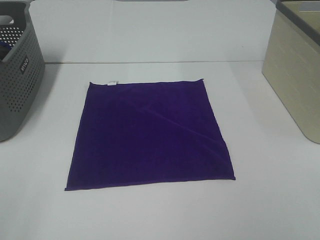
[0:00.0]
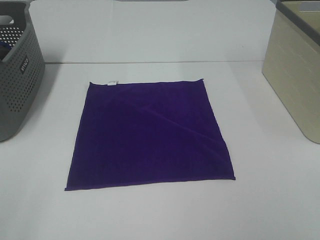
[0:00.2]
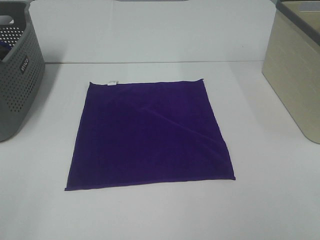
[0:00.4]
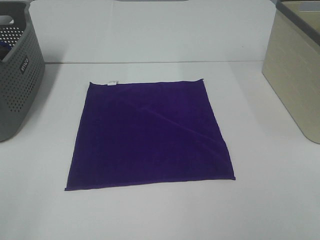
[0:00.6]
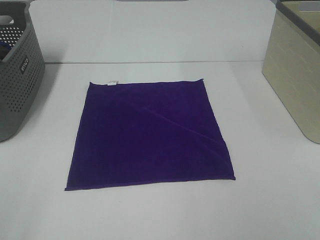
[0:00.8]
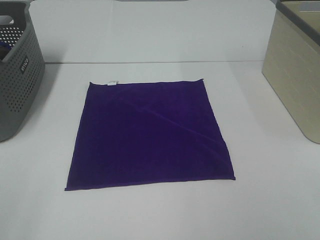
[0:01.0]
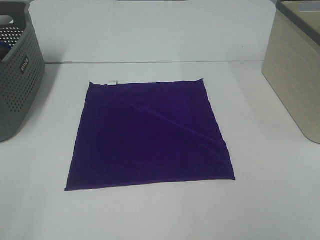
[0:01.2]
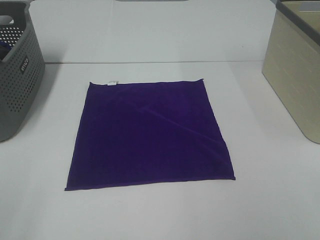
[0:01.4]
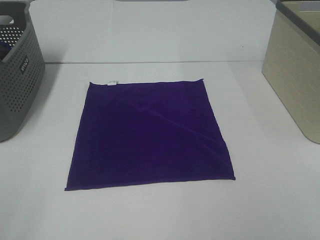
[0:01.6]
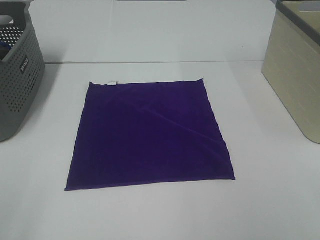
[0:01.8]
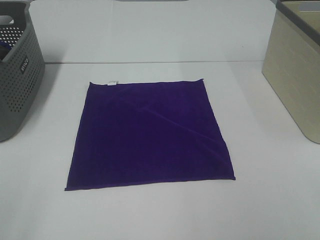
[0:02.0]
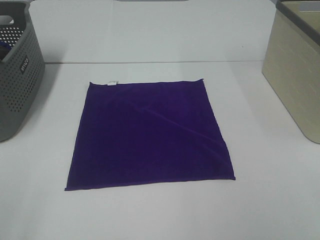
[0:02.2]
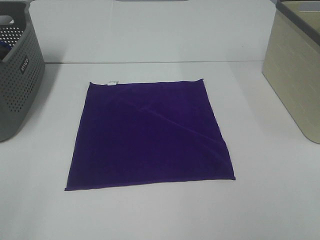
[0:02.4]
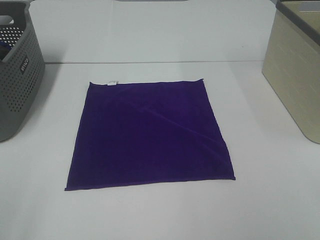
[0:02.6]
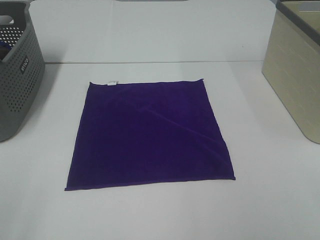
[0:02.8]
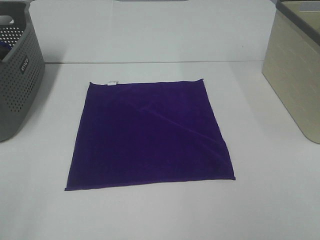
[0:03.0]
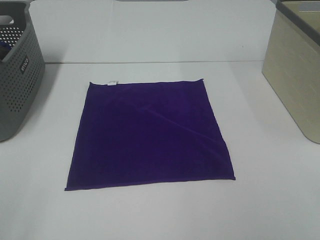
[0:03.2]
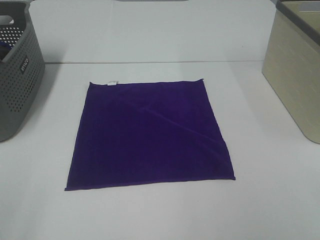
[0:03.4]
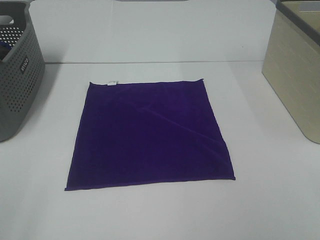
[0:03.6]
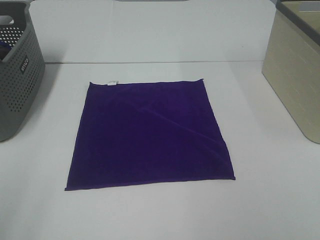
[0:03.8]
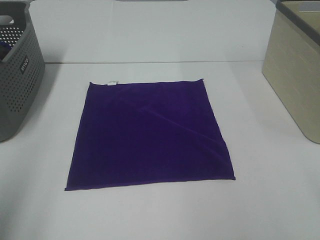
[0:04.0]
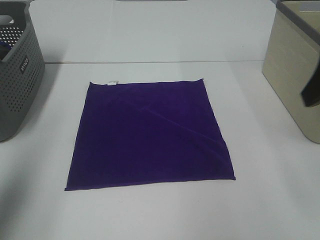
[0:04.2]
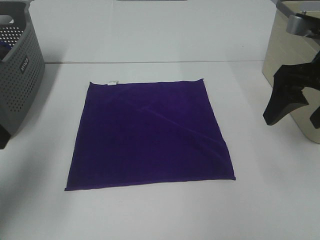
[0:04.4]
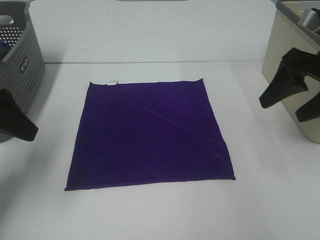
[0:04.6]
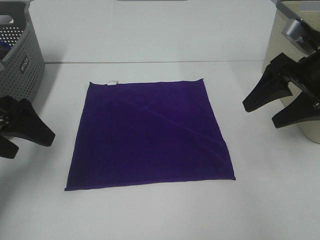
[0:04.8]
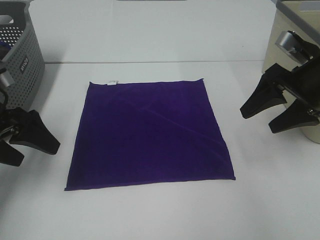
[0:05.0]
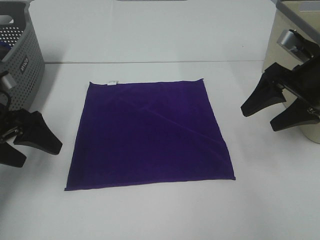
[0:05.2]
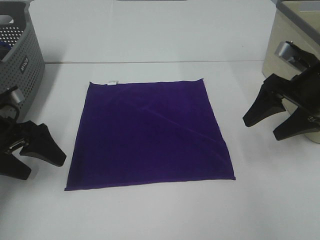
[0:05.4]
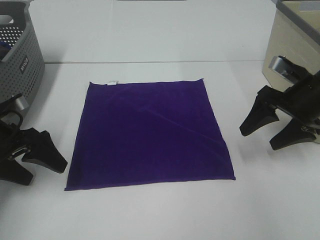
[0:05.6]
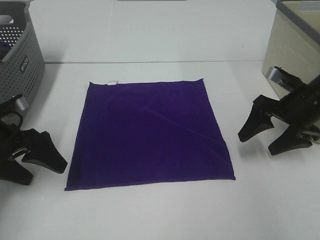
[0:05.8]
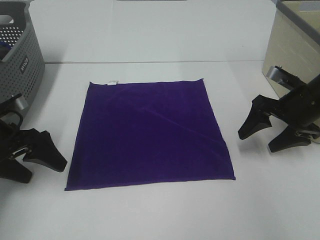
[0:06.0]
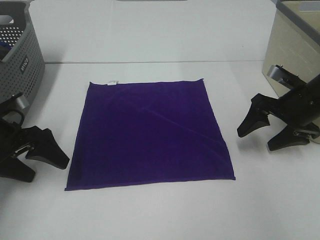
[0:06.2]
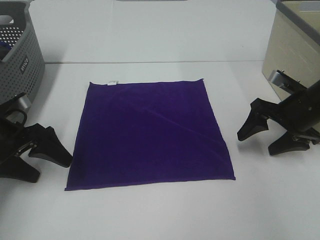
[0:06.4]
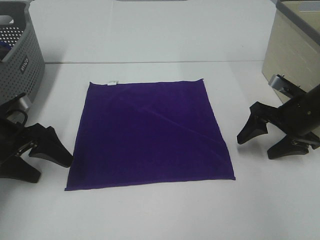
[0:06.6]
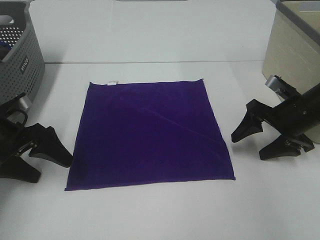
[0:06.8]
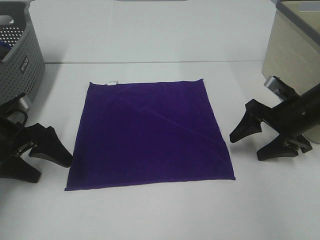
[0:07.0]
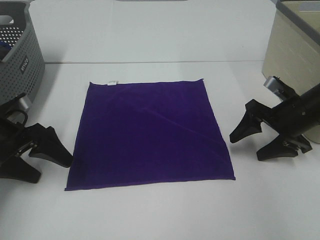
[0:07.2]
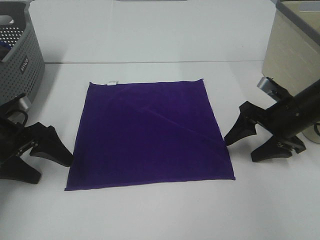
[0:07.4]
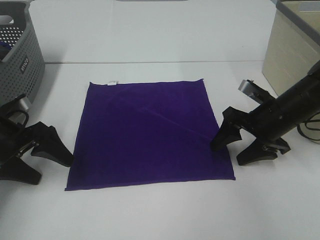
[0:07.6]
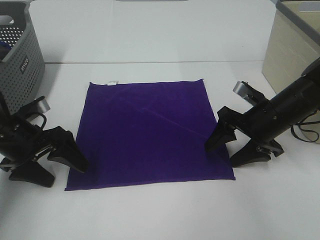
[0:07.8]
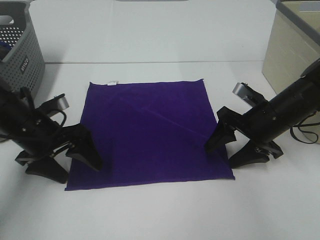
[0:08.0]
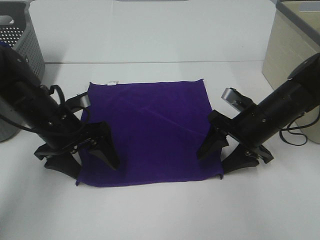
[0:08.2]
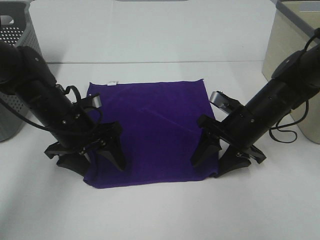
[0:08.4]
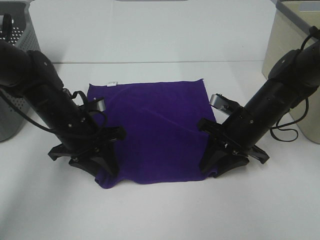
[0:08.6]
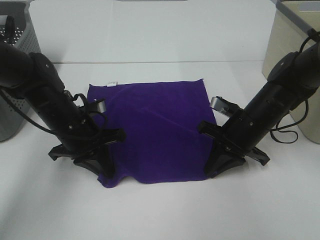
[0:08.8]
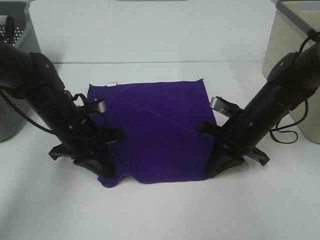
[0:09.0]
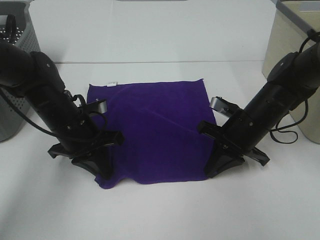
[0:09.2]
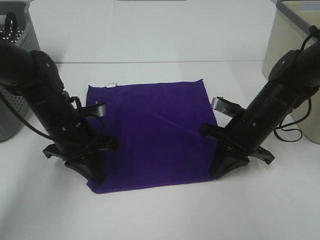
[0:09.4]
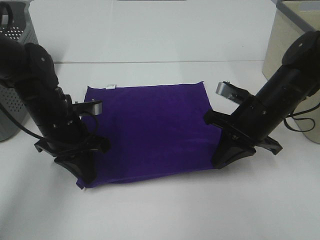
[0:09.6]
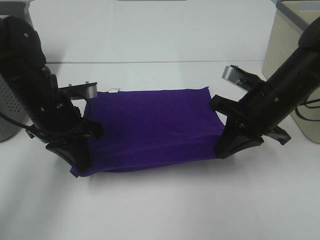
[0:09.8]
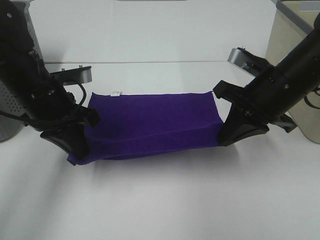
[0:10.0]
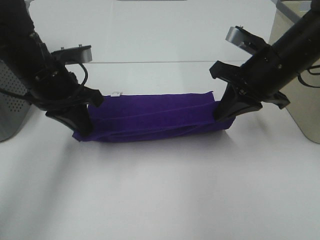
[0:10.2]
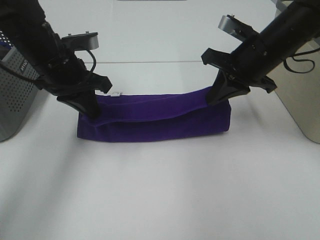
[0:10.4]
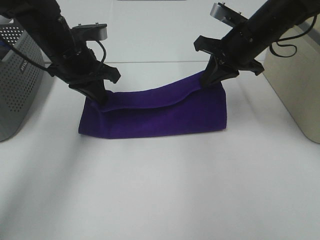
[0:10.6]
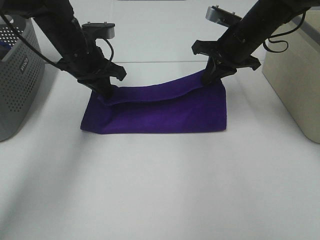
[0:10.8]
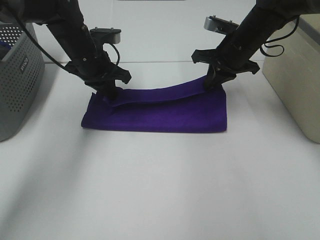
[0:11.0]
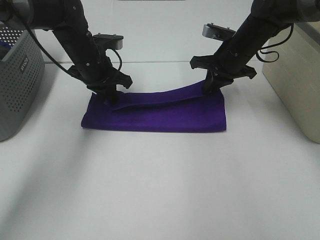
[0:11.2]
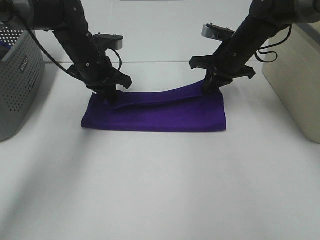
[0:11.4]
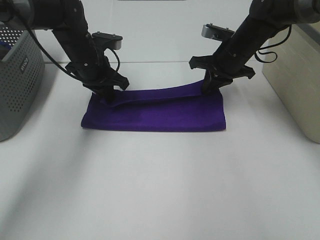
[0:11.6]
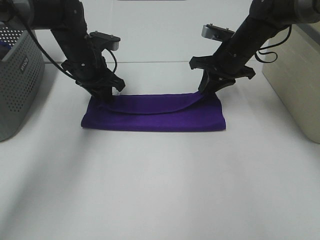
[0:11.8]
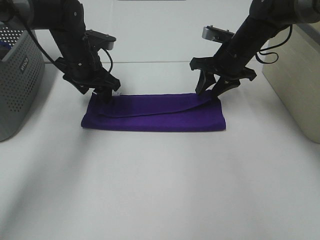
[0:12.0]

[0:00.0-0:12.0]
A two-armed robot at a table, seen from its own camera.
Task of the whole recording: Fold towels.
Step, 0:00.0 to 0:08.8: Left hand: grab the bottom left corner of purple towel.
Step, 0:00.0 to 0:08.8: Right hand: grab the bottom right corner of purple towel.
Step, 0:09.0 to 0:11.8: Left hand: fold the purple towel up.
Step, 0:09.0 to 0:11.8: Right hand: fold the purple towel up.
0:00.0 to 0:03.0: The two grippers keep their place.
0:03.0 to 0:04.4: The grippers both shift forward by about 25 cm.
0:04.4 to 0:06.0: The two grippers go approximately 15 cm downward and forward.
0:06.0 to 0:07.6: The right gripper moves to the left, some 5 cm.
0:07.6 to 0:09.0: The left gripper goes approximately 10 cm to the right, and closes its fingers. The right gripper closes.
0:09.0 to 0:10.4: The two grippers go some 10 cm upward.
0:10.4 to 0:12.0: The two grippers go roughly 10 cm forward and downward. The left gripper opens its fingers; the right gripper opens its fingers.

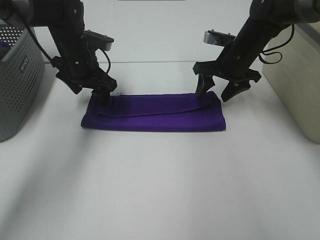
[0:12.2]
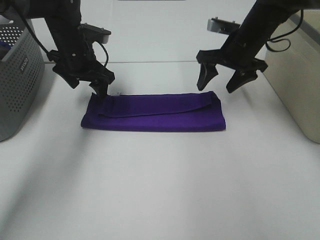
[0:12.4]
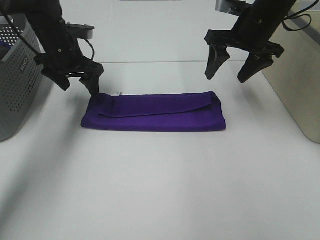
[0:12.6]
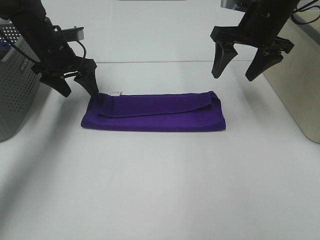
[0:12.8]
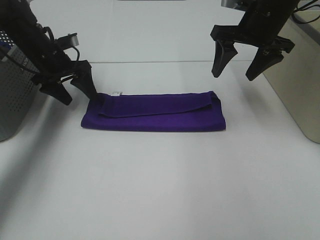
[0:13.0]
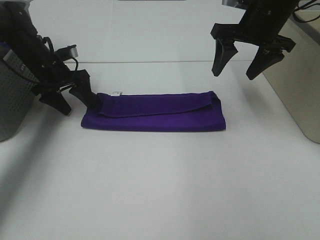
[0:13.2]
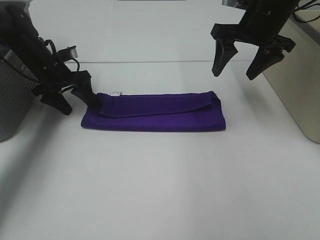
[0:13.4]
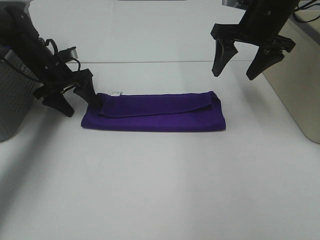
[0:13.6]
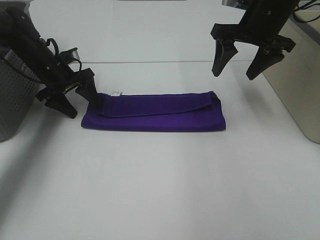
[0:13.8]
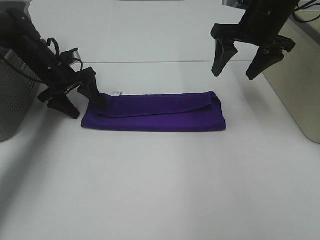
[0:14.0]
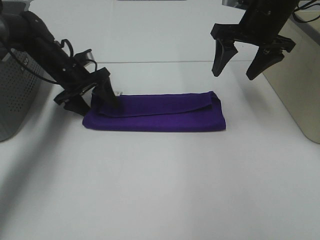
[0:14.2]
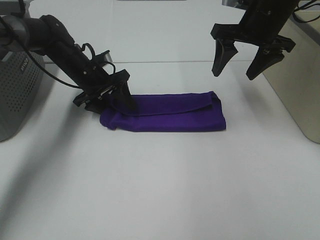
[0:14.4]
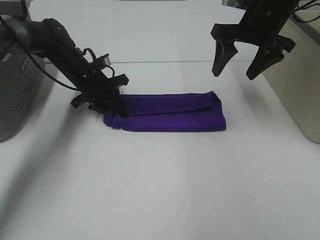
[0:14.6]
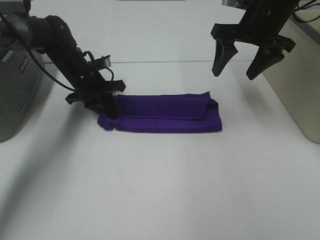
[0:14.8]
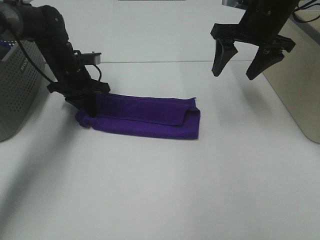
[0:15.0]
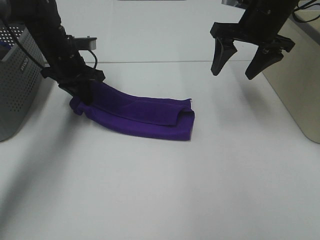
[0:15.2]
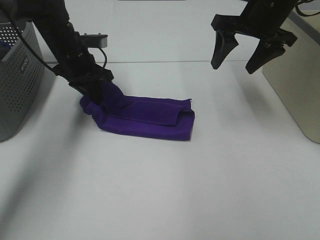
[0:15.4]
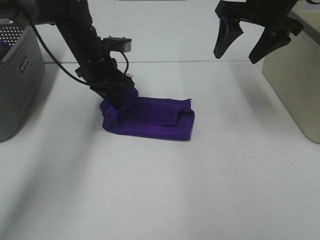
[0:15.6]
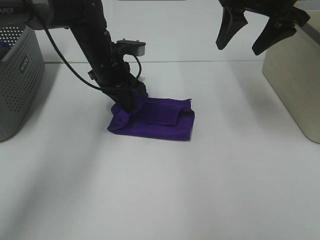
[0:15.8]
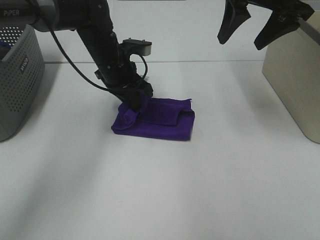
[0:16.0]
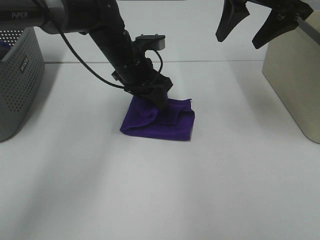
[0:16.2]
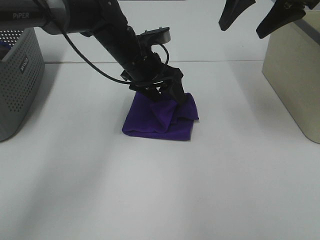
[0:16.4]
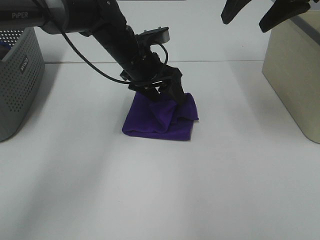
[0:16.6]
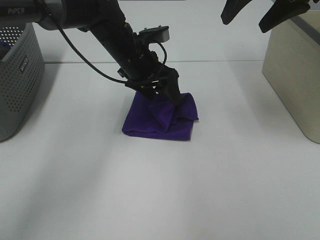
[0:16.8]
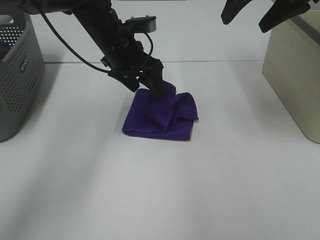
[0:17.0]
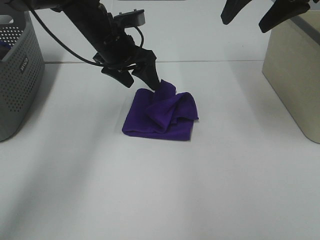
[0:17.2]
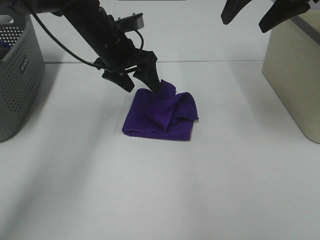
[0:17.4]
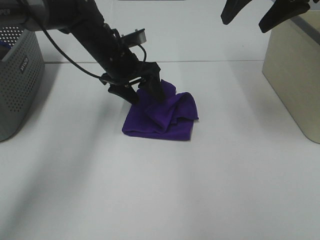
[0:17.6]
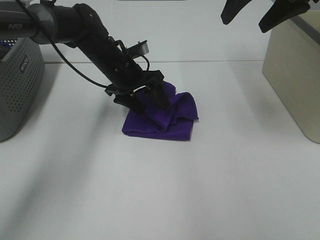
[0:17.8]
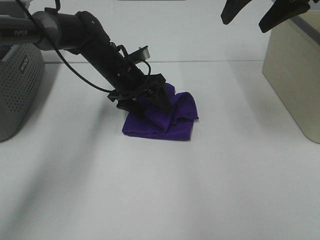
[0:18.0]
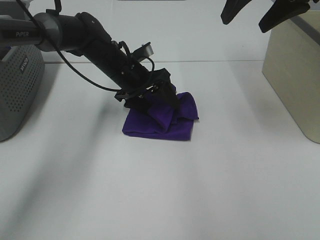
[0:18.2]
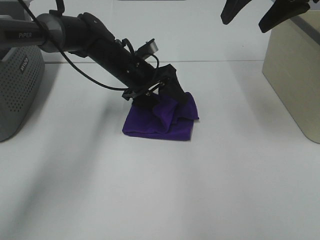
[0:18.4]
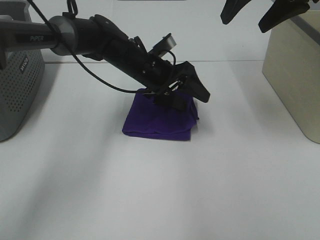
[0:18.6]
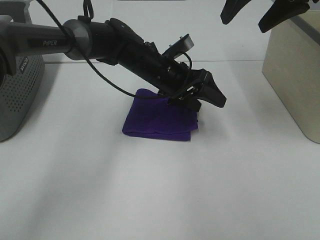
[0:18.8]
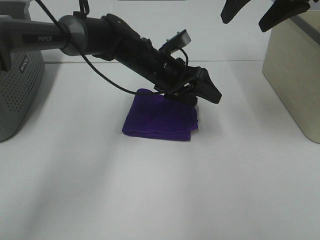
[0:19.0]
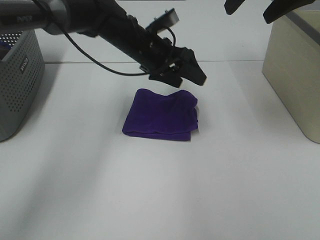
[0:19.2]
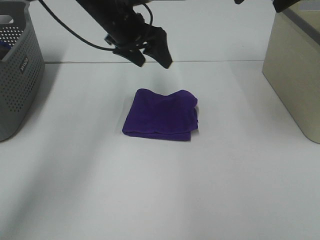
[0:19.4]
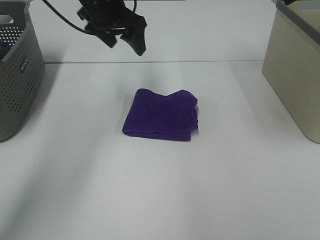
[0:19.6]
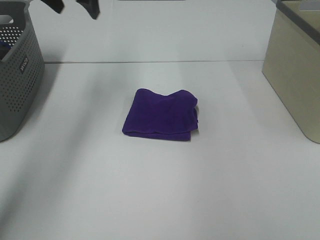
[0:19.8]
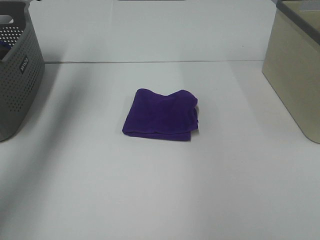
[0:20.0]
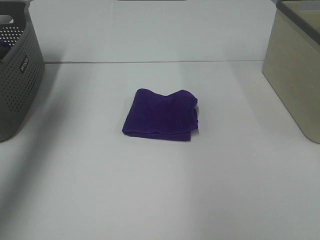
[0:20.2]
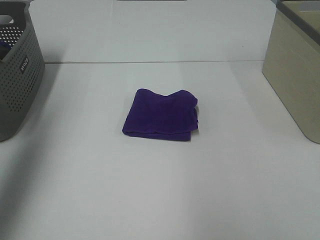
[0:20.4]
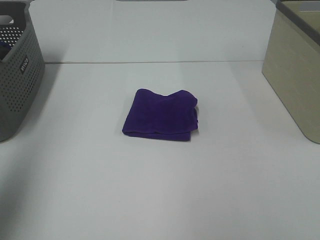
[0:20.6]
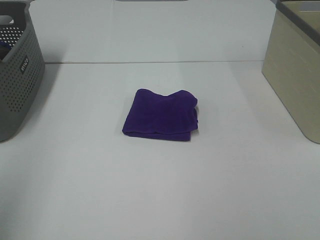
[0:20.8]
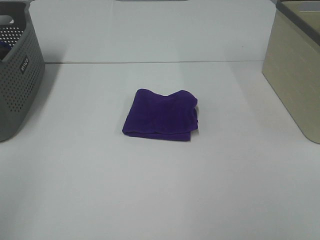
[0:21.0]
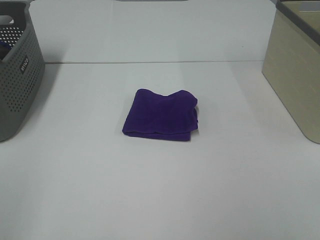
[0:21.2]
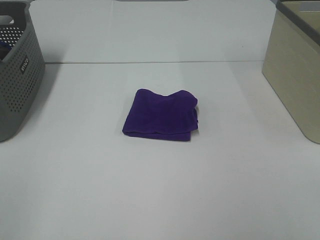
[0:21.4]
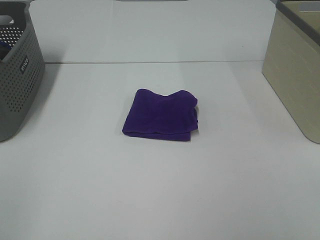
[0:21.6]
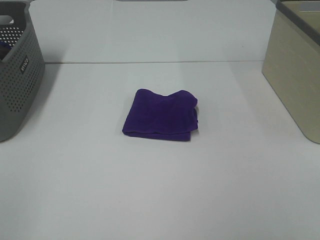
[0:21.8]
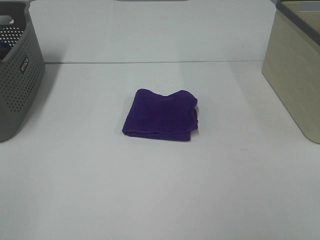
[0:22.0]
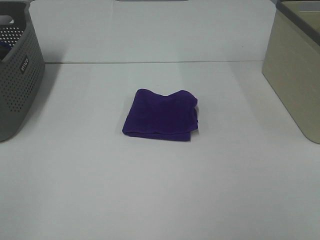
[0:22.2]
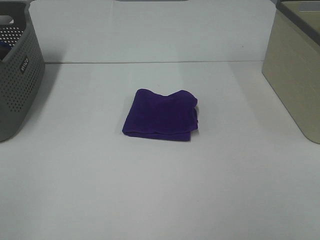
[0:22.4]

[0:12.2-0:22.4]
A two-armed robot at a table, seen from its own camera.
Task of the whole recording: Fold towels.
Step, 0:12.2 to 0:16.2: Left hand: fold the purple towel from left to right.
Step, 0:16.4 to 0:19.0: Left hand: adjust the purple towel.
0:12.2 to 0:13.6: The right gripper goes approximately 10 cm upward. The left gripper travels to the left by some 10 cm.
0:13.6 to 0:15.2: The left gripper ends up approximately 5 cm from where it was, and closes.
0:15.2 to 0:16.6: The left gripper moves to the right, about 15 cm, and opens. The right gripper moves upward, about 10 cm.
0:16.6 to 0:18.0: The left gripper moves approximately 5 cm.
0:18.0 to 0:19.4: The left gripper is displaced upward by some 10 cm.
0:19.4 to 0:21.0: The left gripper moves backward and to the left, about 50 cm; the right gripper heads backward, covering some 35 cm.
